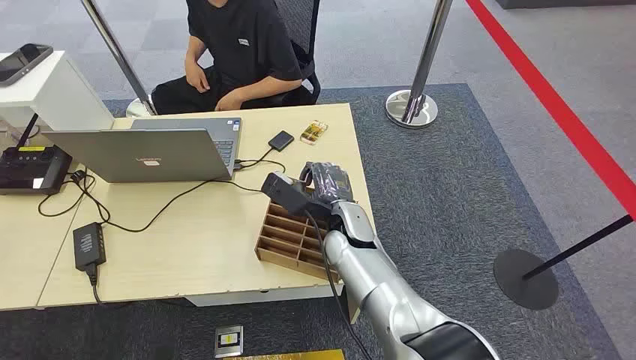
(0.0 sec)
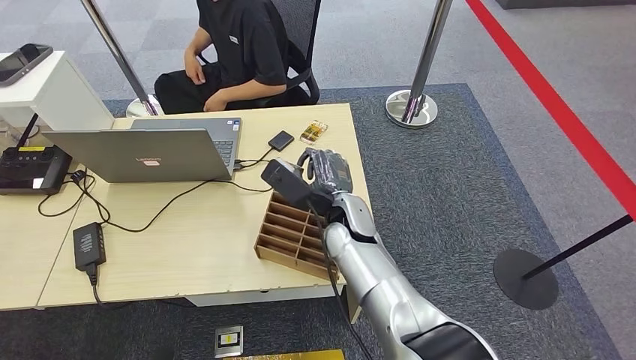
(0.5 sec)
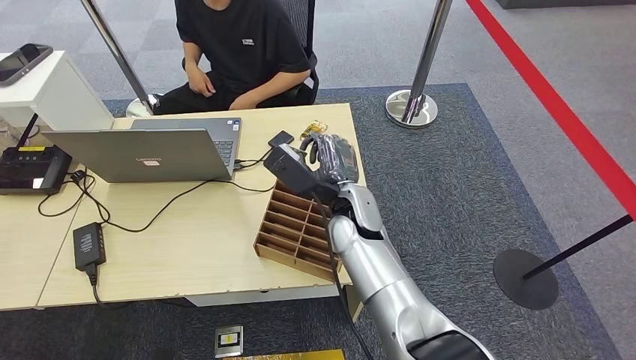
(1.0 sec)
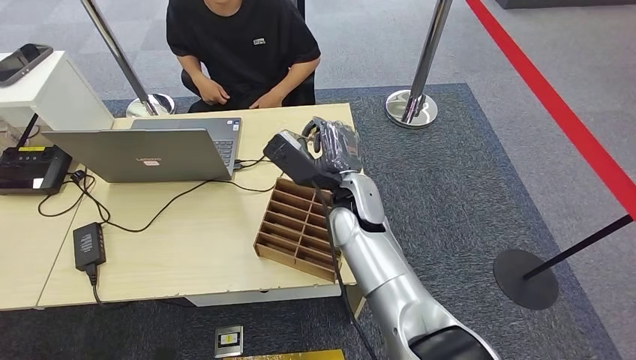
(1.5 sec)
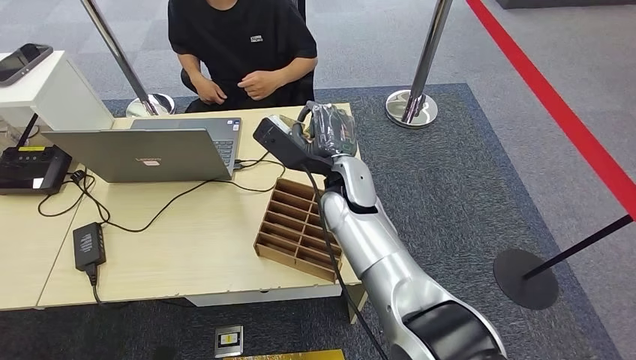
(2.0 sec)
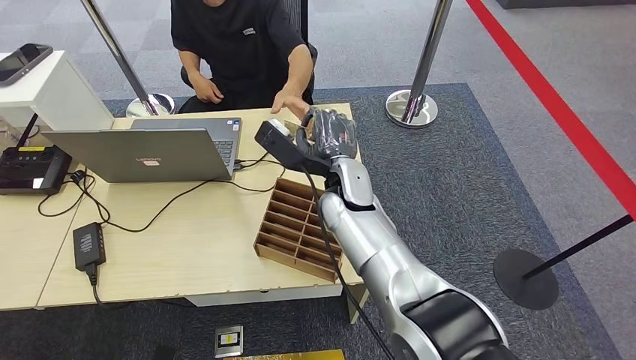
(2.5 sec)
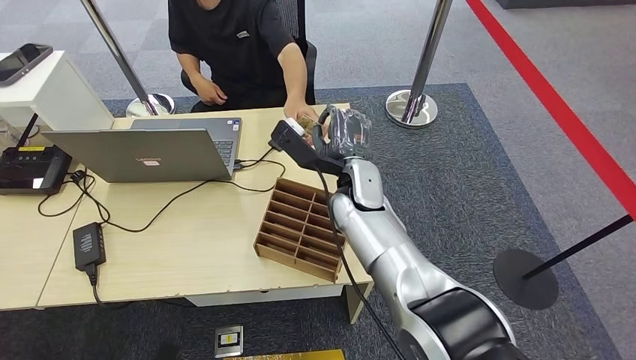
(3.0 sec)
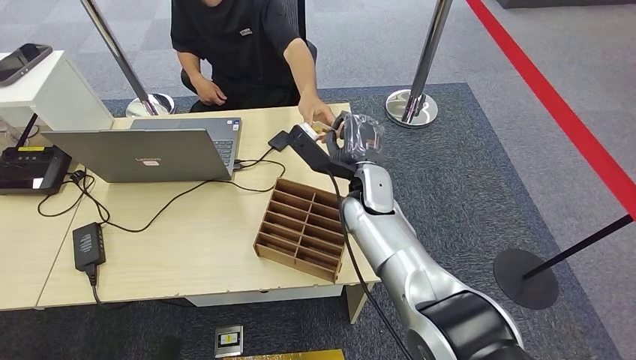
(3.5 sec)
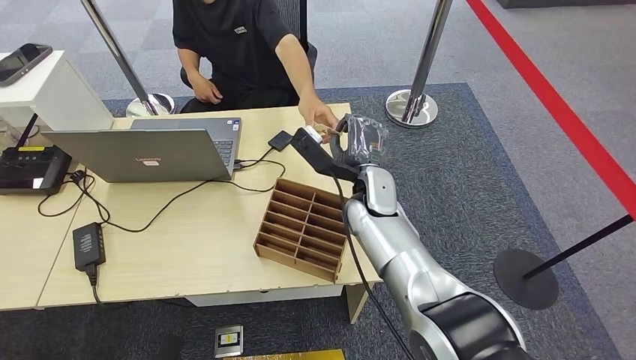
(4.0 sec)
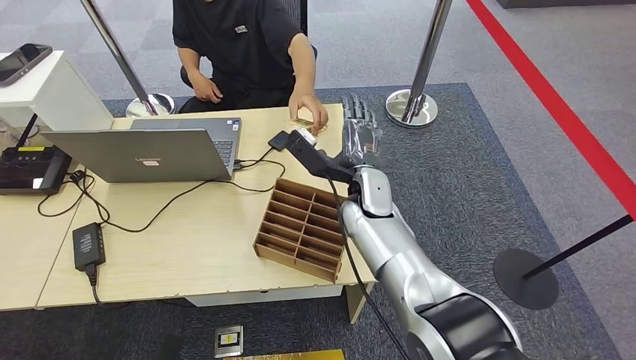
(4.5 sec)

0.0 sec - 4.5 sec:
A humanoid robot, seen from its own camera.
Step, 0.0 sec - 1.0 sec: Pick up the key card from the card box.
Step, 1.5 sec - 4.5 sec: Hand the key card to the target.
2.0 sec - 4.5 sec: The right hand moves approximately 5 cm.
